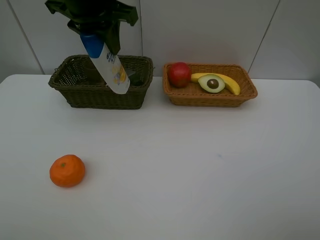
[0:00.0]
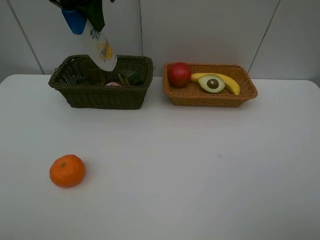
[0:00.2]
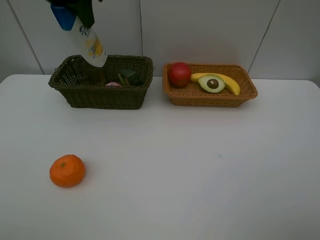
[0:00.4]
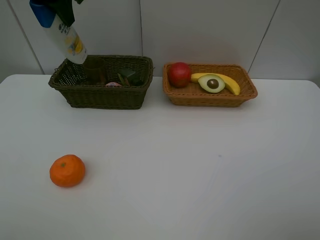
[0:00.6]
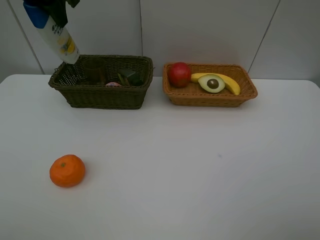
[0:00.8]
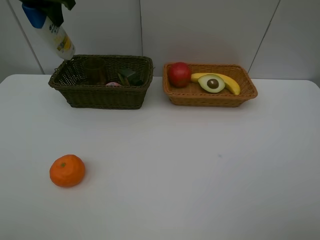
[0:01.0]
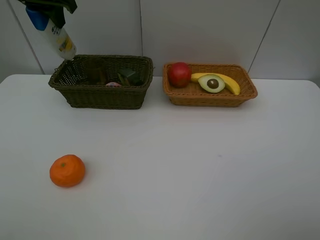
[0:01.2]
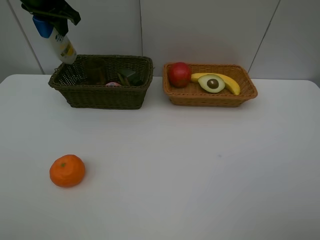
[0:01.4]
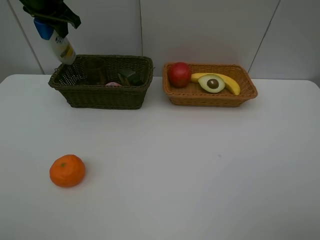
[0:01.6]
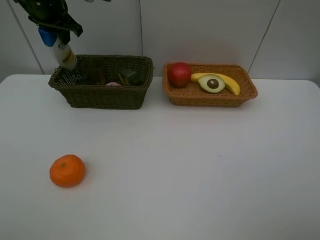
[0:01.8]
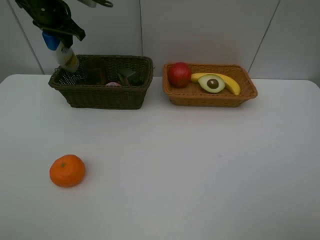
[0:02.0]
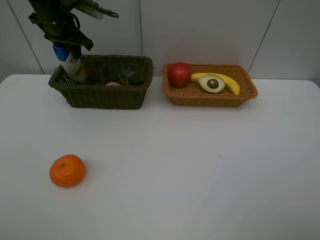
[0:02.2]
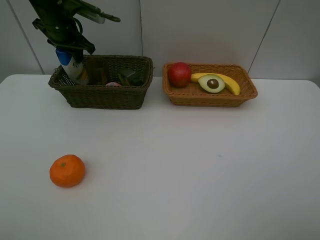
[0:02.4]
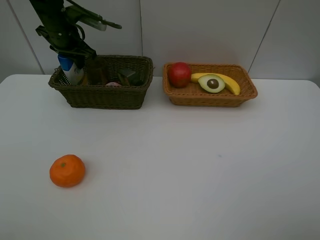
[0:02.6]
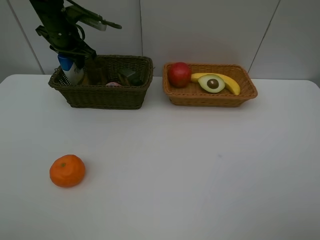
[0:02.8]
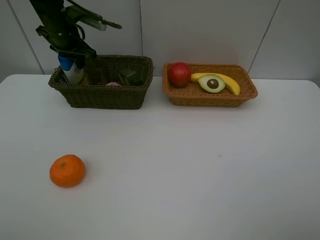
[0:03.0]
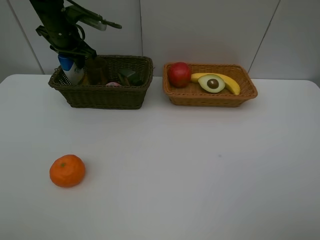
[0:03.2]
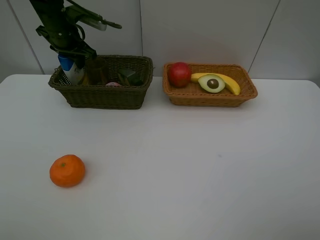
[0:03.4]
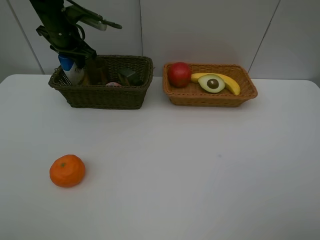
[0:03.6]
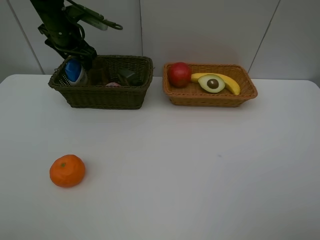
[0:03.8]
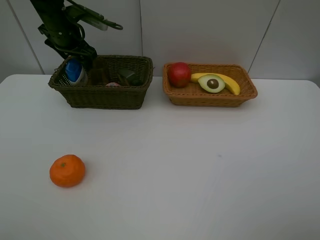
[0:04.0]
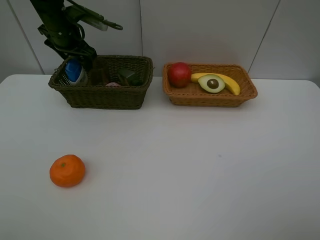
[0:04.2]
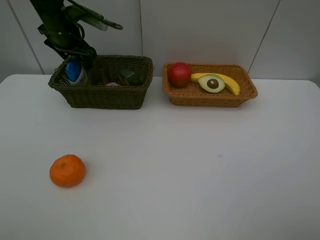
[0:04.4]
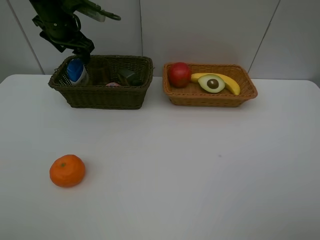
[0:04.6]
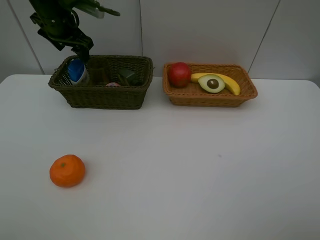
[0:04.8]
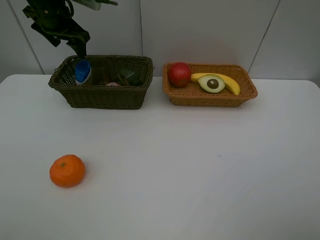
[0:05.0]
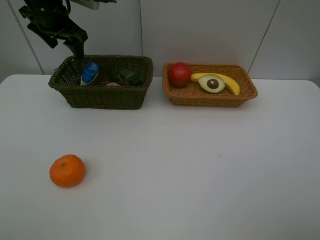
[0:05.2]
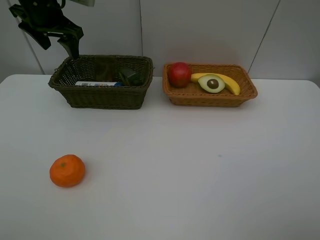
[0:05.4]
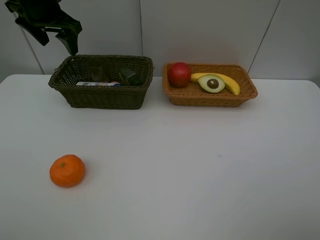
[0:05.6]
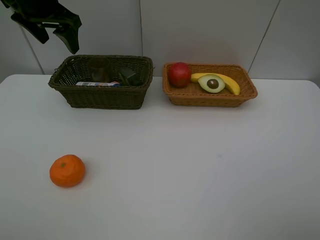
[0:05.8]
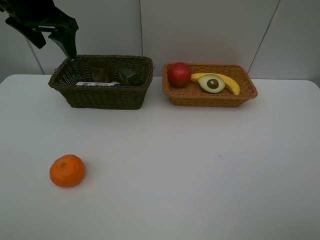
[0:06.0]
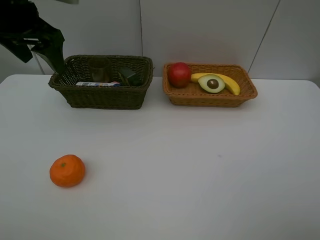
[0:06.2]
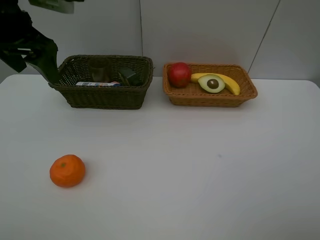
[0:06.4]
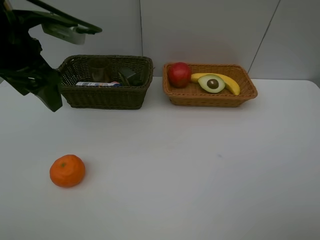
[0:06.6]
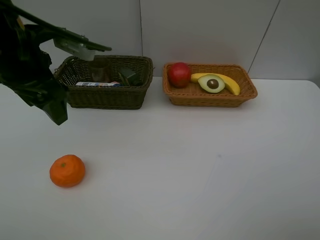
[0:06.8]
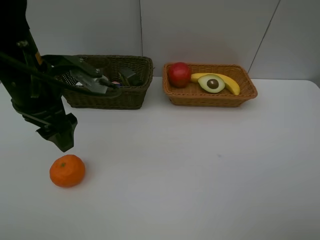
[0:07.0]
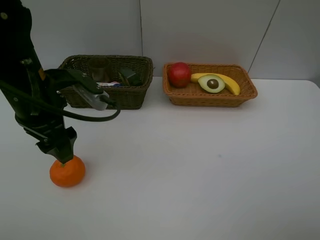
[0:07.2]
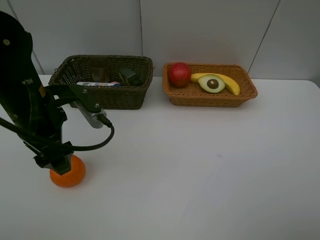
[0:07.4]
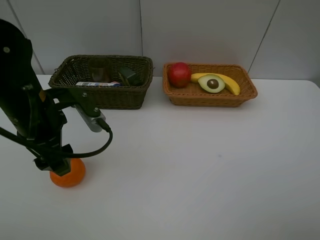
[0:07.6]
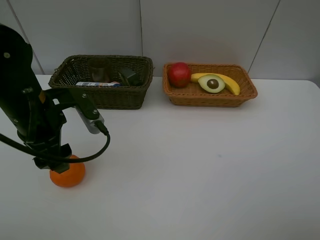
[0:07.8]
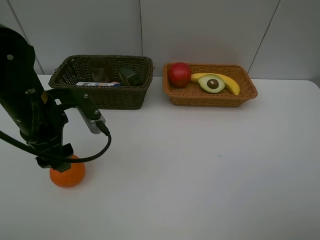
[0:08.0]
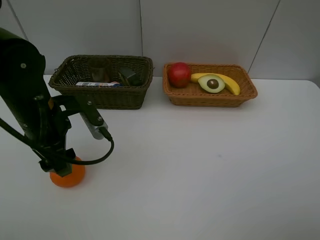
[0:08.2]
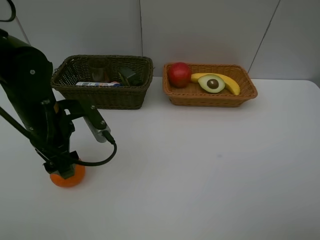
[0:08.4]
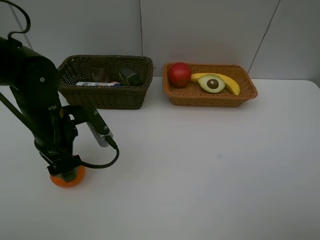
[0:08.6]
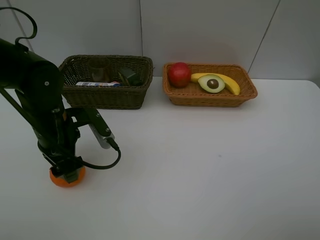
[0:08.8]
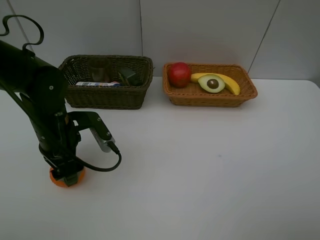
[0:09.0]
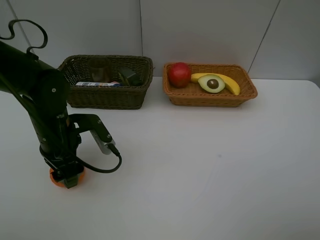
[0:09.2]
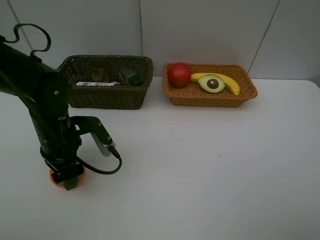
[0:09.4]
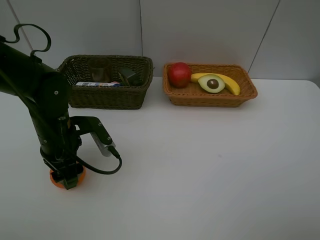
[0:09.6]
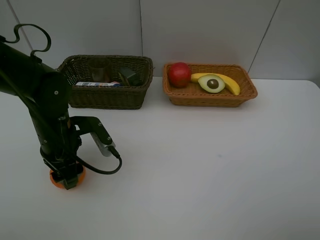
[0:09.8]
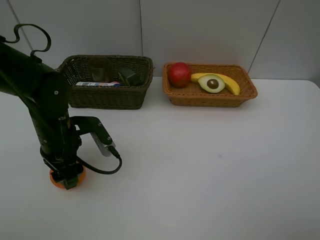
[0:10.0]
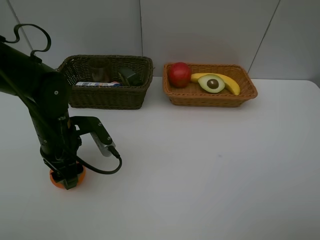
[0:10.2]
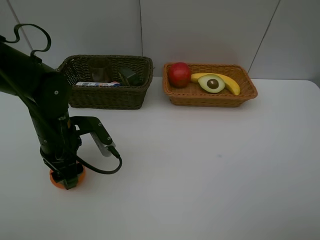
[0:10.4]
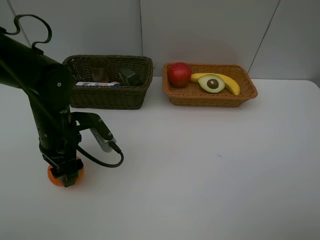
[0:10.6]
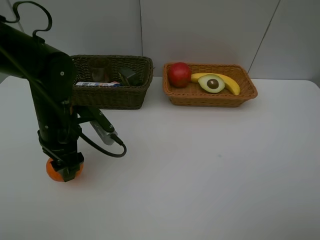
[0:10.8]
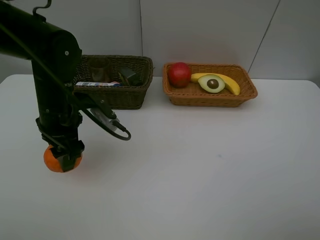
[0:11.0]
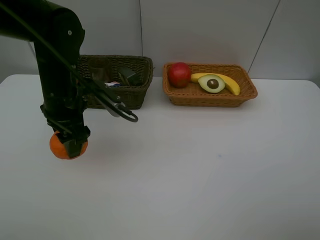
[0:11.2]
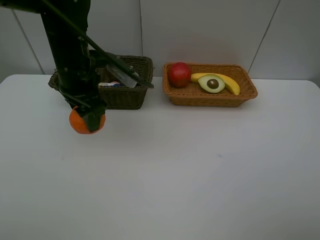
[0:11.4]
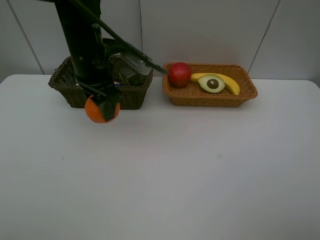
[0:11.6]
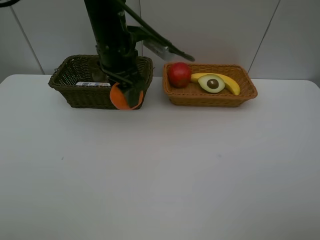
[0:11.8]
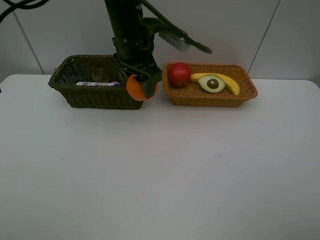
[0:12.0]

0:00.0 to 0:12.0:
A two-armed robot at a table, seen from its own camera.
Task of the whole recording: Place multiple objects separately in different baskets.
Step, 0:00.0 to 0:05.2: Place the shampoo in the dark basket with left gripper.
Step, 0:05.4 to 0:10.8: Pick up the orange with left gripper.
0:00.0 to 0:01.6: The left gripper goes about 15 cm to the left and forward.
0:01.6 to 0:03.0: The left gripper shifts about 10 cm downward.
0:04.4 to 0:06.0: The left gripper shifts some 15 cm backward and upward.
0:06.0 to 0:07.6: The left gripper heads backward and downward, covering roughly 20 cm.
0:07.6 to 0:09.0: The left gripper travels downward by about 5 cm.
0:09.0 to 0:10.4: Neither gripper changes place.
0:10.4 to 0:12.0: The left gripper is displaced to the right, forward and upward by some 25 cm.

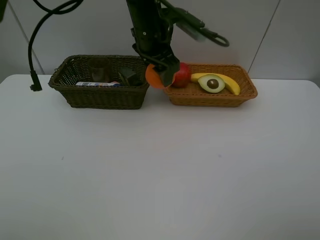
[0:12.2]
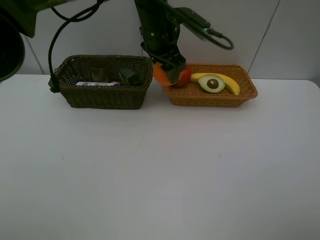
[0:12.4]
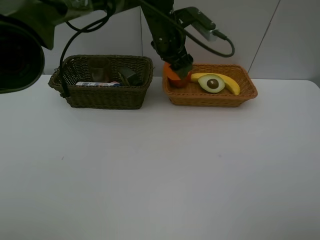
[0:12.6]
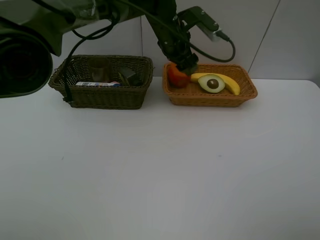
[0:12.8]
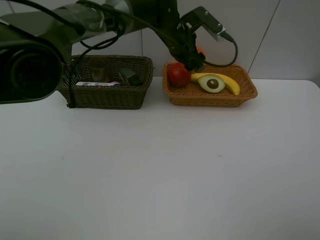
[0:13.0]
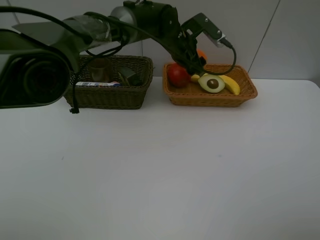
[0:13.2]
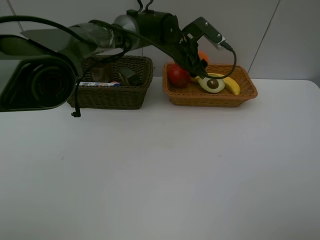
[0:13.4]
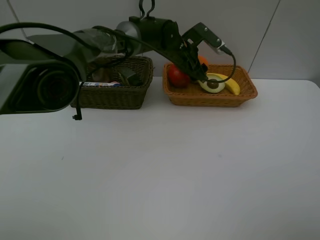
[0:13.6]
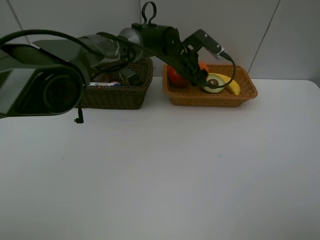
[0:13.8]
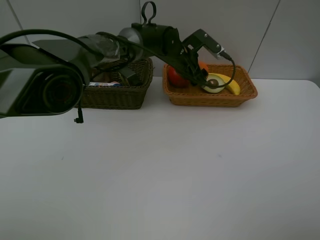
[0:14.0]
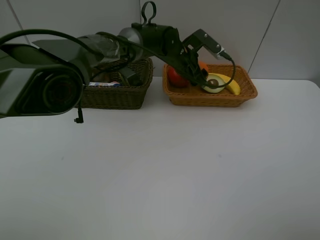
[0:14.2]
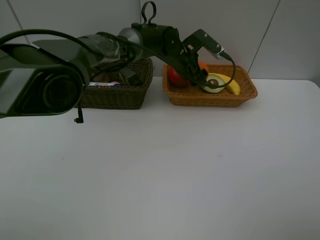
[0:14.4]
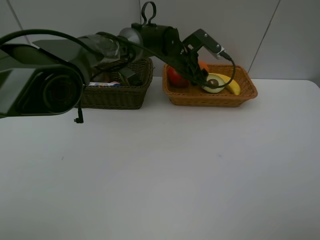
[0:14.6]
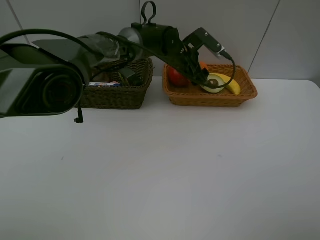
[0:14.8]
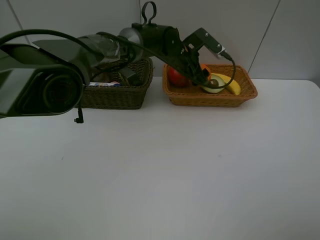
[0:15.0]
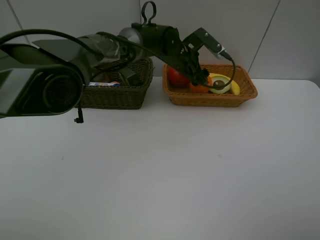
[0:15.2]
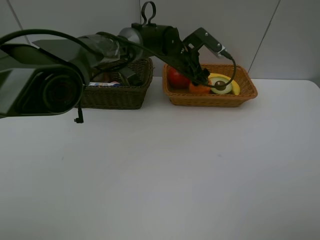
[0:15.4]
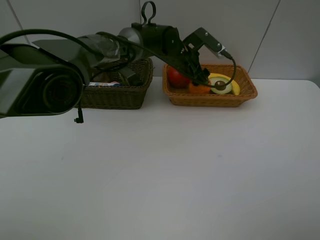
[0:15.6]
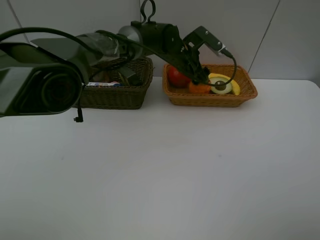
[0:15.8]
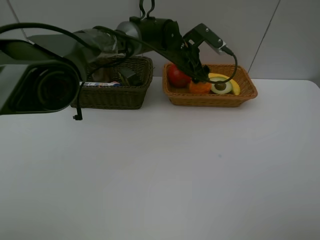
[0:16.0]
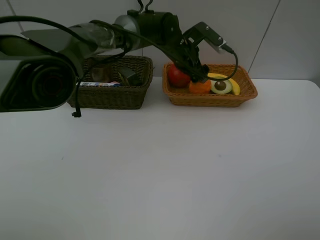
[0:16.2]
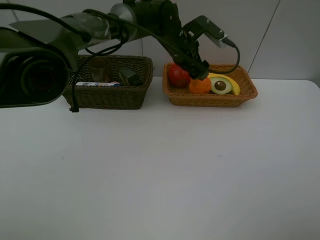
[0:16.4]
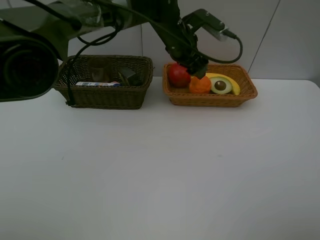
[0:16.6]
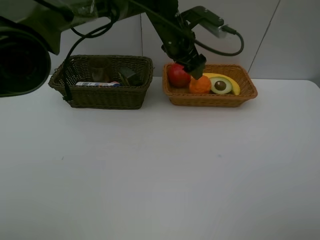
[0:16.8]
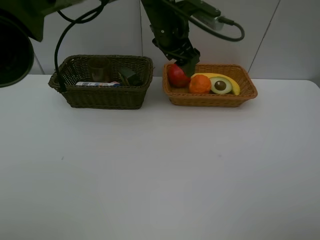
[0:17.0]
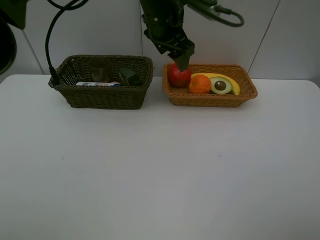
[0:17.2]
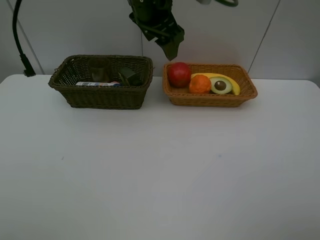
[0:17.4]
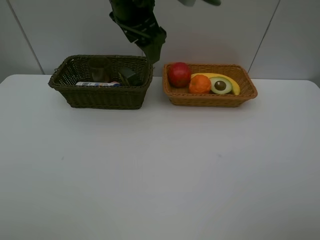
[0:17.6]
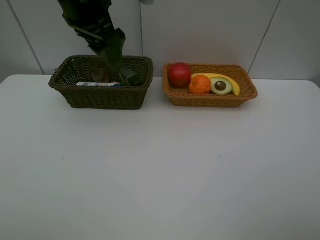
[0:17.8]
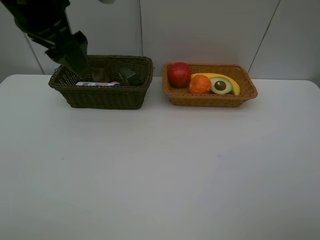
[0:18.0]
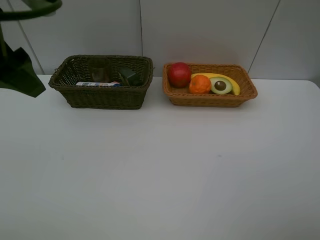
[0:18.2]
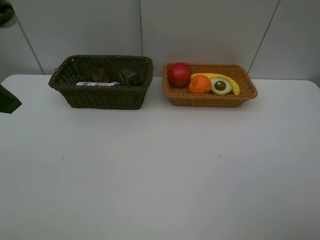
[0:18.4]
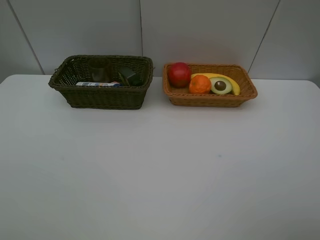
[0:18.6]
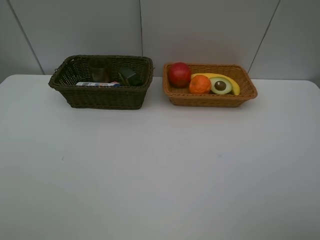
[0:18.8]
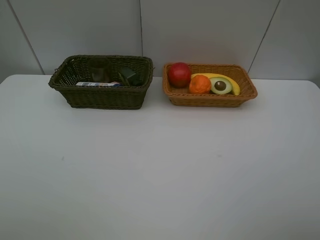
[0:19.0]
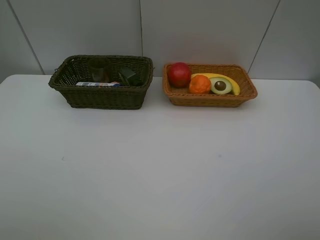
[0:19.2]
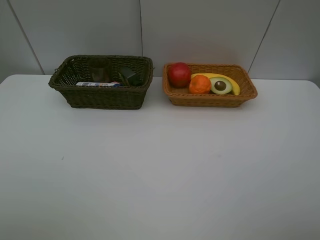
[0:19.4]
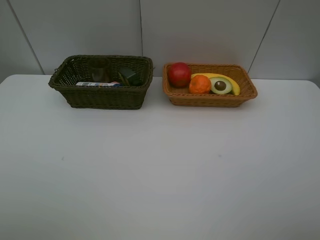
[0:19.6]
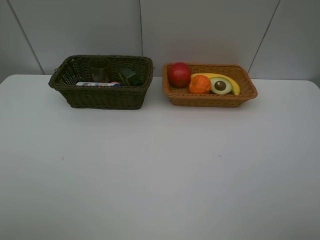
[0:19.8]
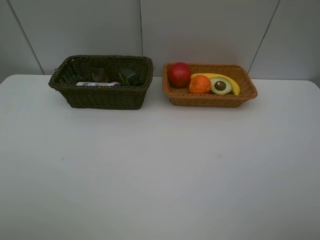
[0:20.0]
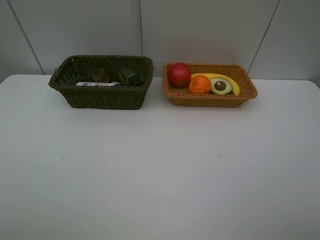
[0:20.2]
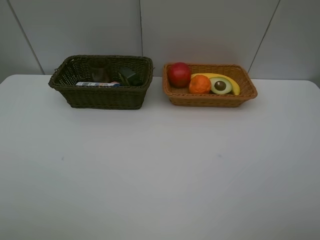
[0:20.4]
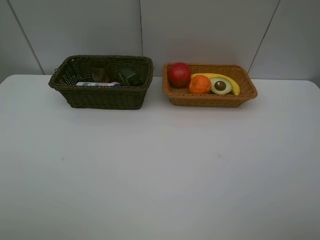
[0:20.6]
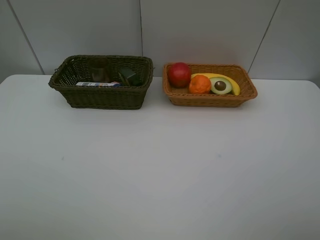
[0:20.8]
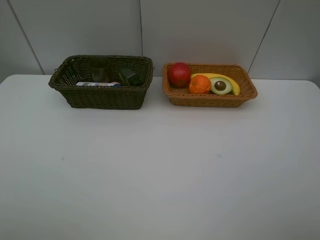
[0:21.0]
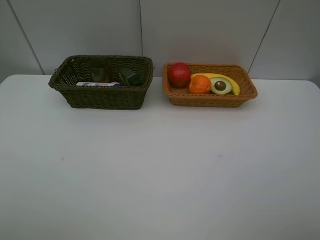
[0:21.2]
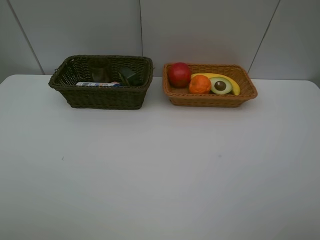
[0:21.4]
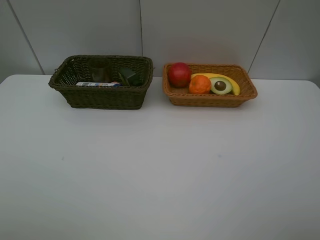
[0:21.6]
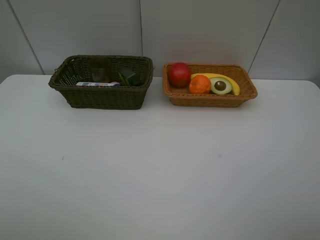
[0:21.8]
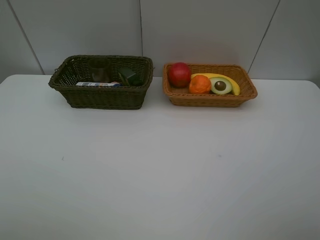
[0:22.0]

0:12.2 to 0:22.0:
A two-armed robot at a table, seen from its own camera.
Task of the whole recording: Place multiple objects separately in different baskets.
Step, 0:12.2 to 0:16.4: Place the orange in the light basket with left gripper.
0:12.2 to 0:13.6: The left gripper is displaced downward, forward and to the right by about 15 cm.
0:13.6 to 0:15.0: Neither gripper changes place.
0:15.0 to 0:16.4: The left gripper changes place by roughly 5 cm.
0:16.4 to 0:17.8: The left gripper travels to the left, upward and backward by some 25 cm.
0:17.8 to 0:19.2: The left gripper travels backward and to the left by approximately 30 cm.
0:20.6 to 0:22.0: The two grippers keep their place.
